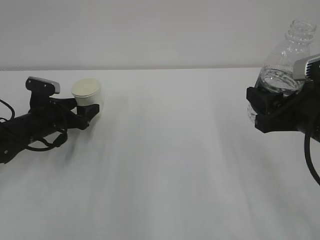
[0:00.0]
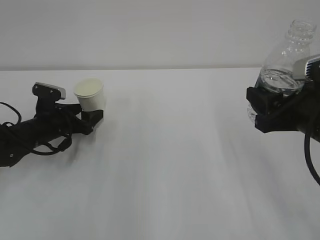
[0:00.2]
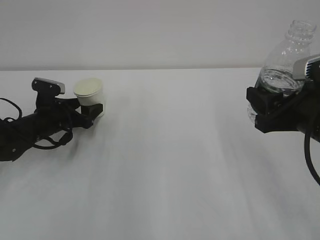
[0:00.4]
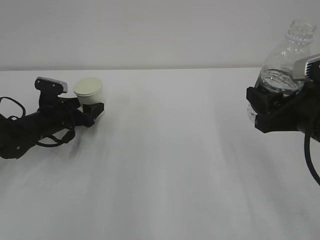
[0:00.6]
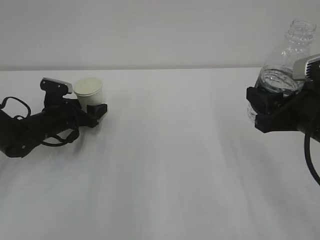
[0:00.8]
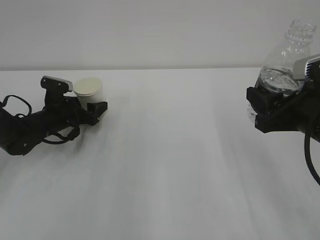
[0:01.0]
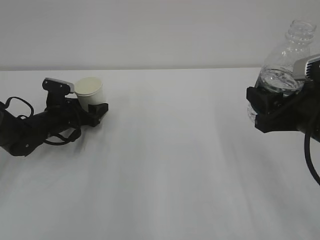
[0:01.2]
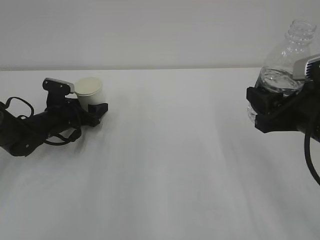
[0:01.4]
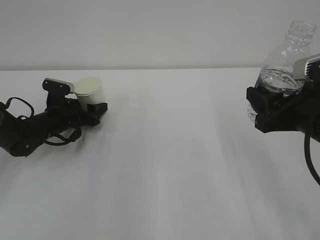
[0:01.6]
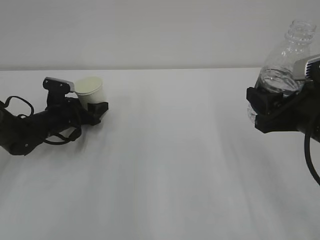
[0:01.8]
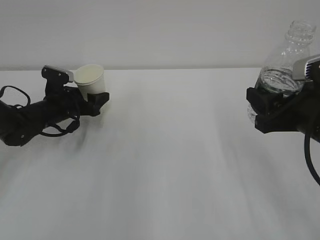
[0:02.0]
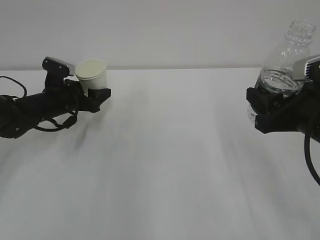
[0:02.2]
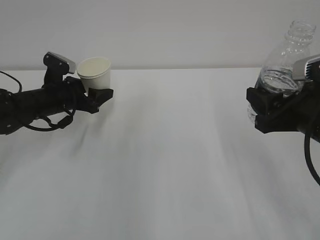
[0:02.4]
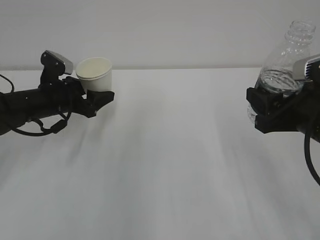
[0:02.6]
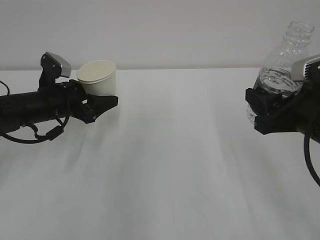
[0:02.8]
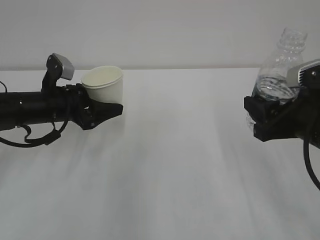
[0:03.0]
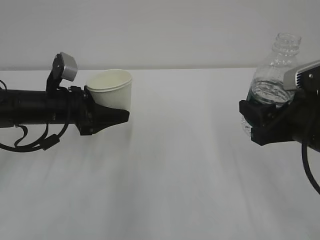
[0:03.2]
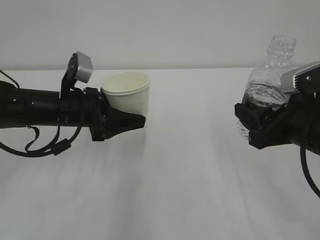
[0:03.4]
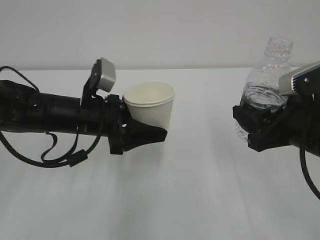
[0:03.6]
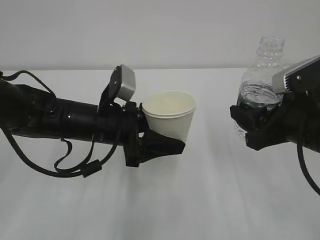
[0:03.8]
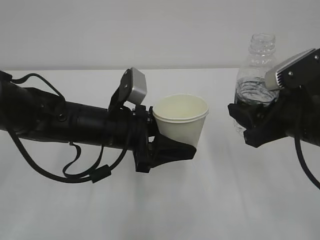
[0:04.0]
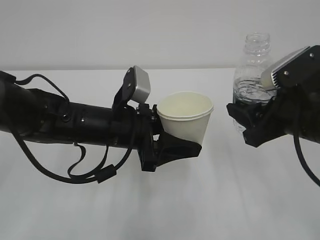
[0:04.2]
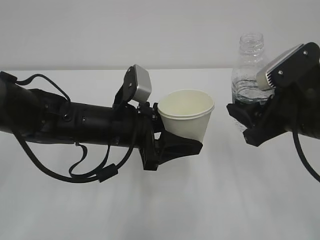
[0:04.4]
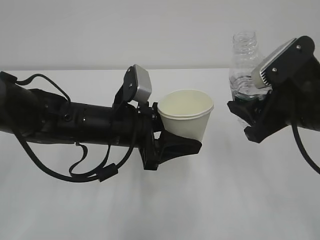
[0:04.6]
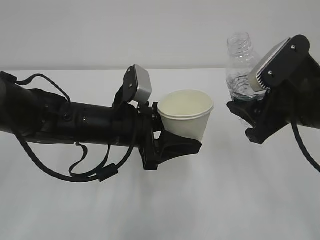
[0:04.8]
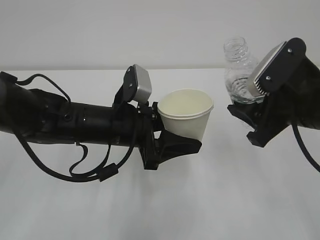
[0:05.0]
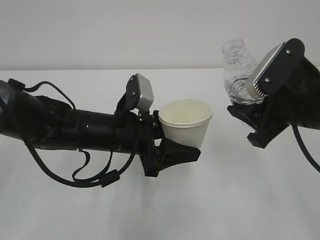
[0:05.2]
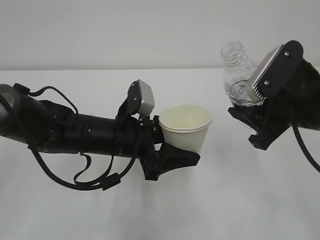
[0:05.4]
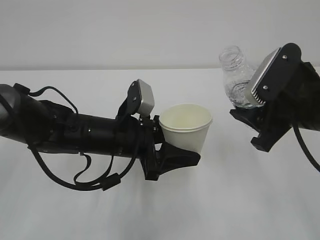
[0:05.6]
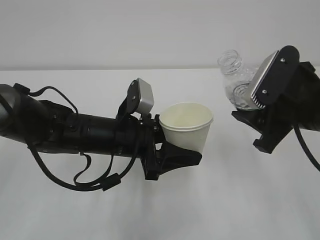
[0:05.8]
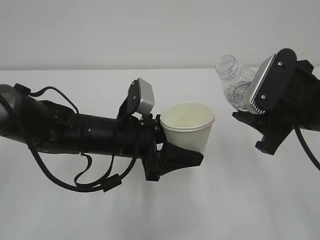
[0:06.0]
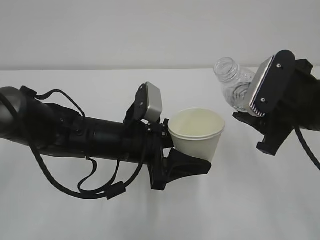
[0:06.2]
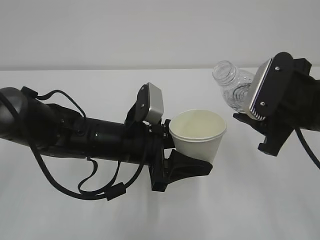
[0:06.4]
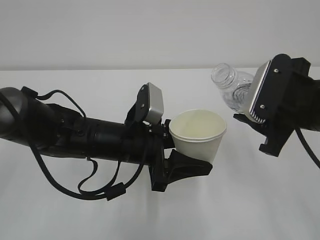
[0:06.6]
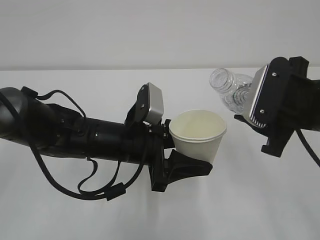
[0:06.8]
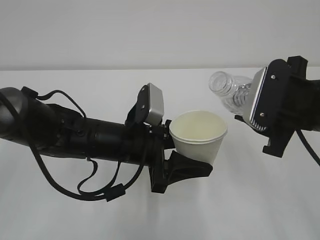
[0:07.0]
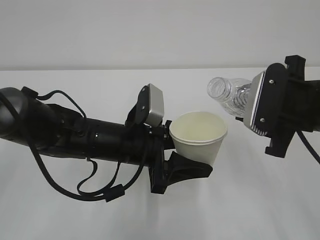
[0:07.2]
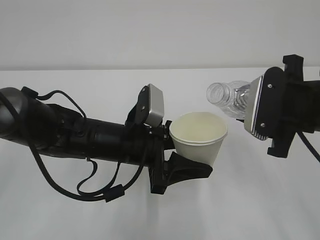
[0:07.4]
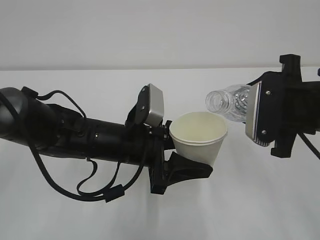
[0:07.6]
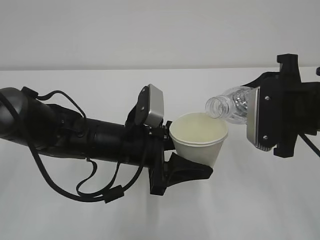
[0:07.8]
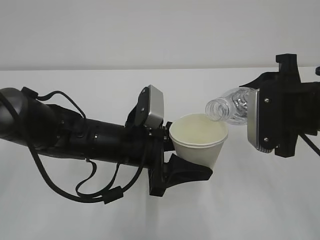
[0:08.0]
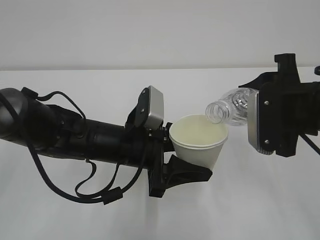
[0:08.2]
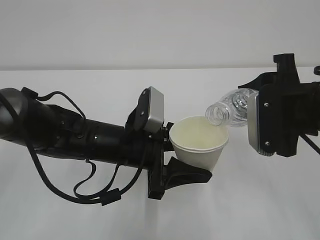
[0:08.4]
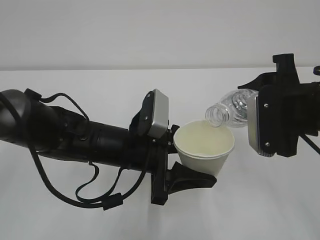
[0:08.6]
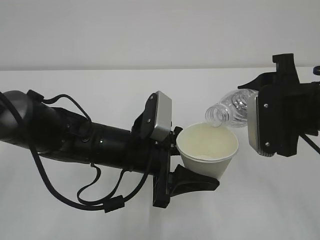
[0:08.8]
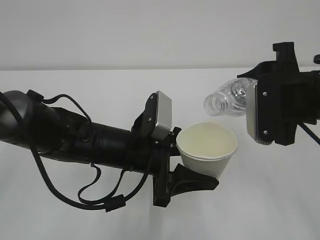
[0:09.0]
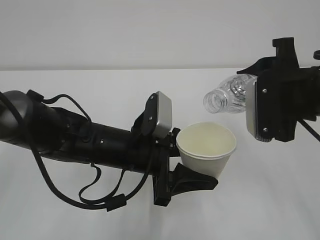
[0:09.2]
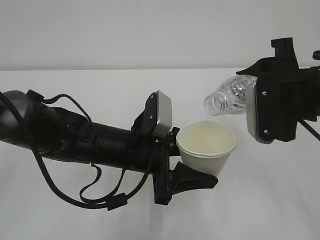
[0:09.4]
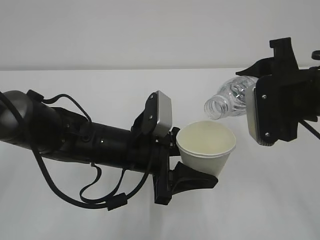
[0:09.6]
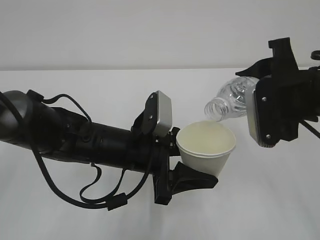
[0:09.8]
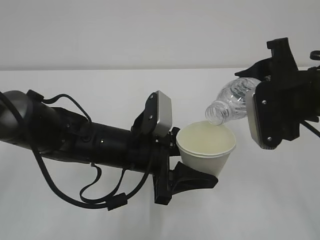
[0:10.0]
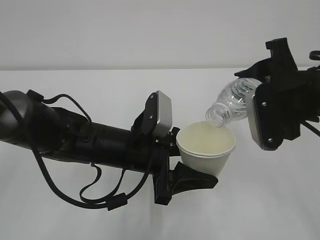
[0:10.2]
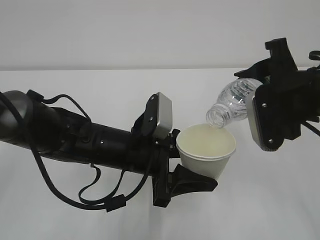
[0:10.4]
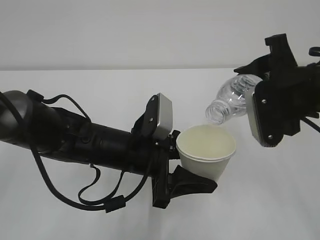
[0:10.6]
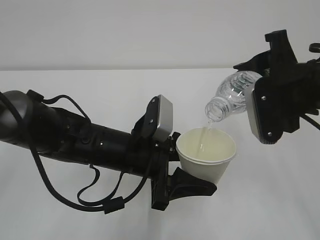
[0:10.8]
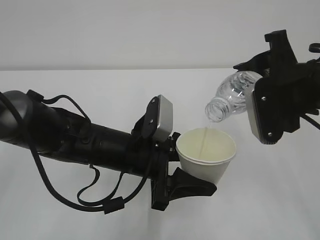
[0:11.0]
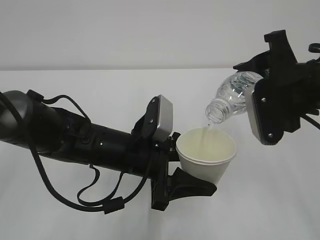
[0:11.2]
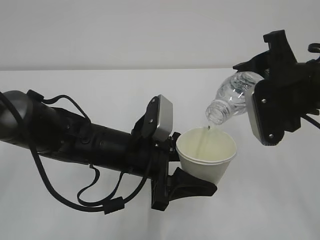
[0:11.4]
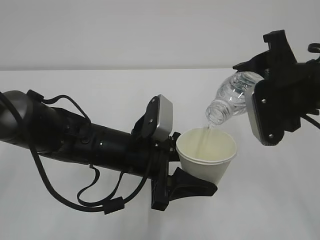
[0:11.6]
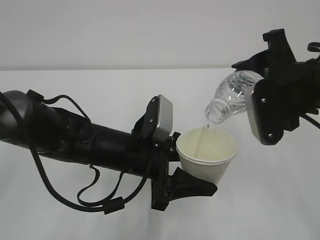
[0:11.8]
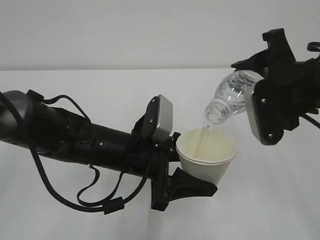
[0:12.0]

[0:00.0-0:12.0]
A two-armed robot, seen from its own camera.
0:00.0 to 0:01.6: The left gripper closes its fingers.
0:01.6 to 0:03.0: The left gripper travels upward and backward by some 10 cm.
0:03.0 to 0:04.4: The left gripper moves to the right and backward, roughly 15 cm.
0:07.6 to 0:09.0: The grippers stay close to where they were, moving slightly.
0:09.0 to 0:10.4: The grippers make only small movements.
0:10.4 to 0:12.0: Neither gripper changes place.

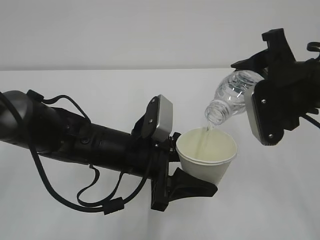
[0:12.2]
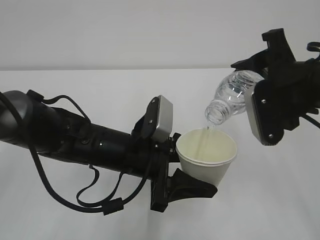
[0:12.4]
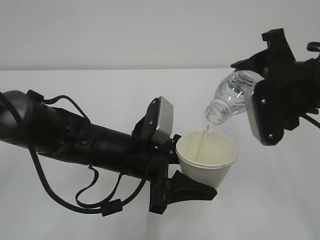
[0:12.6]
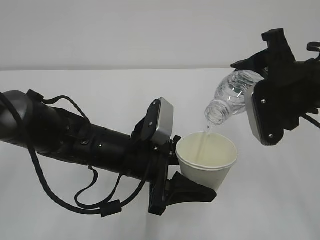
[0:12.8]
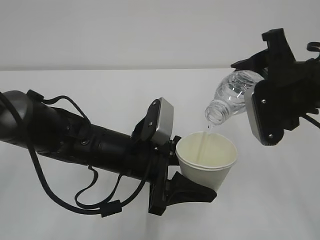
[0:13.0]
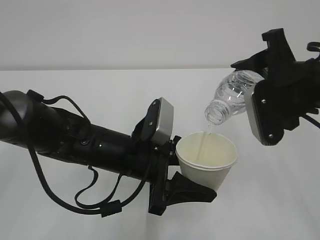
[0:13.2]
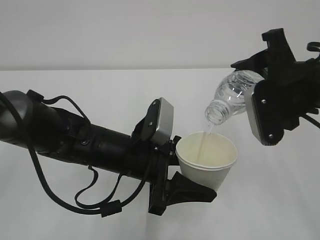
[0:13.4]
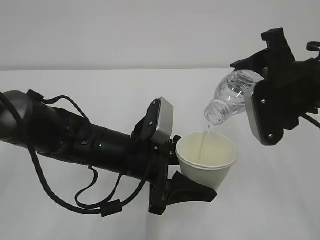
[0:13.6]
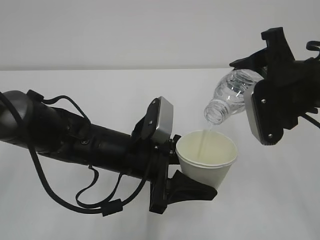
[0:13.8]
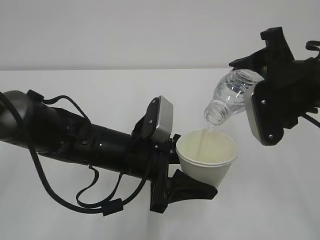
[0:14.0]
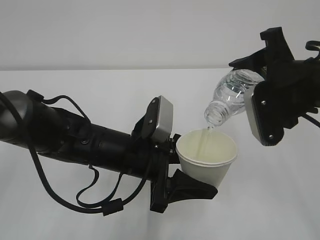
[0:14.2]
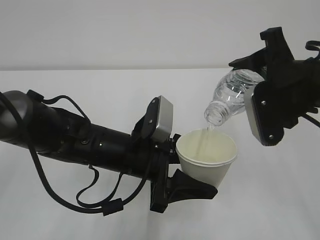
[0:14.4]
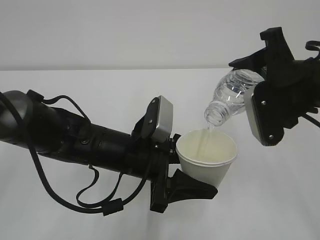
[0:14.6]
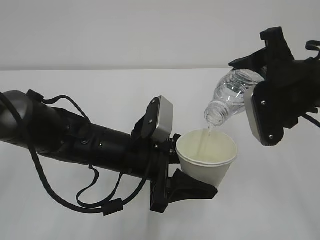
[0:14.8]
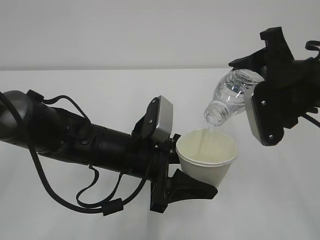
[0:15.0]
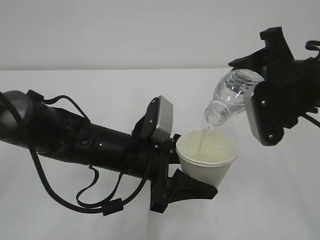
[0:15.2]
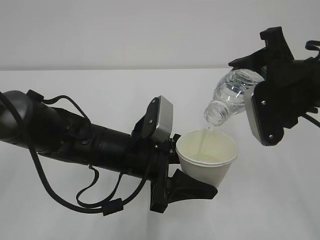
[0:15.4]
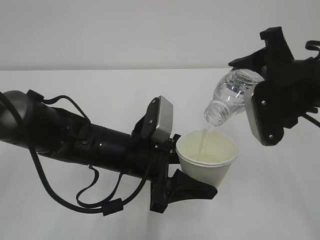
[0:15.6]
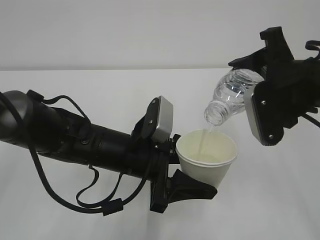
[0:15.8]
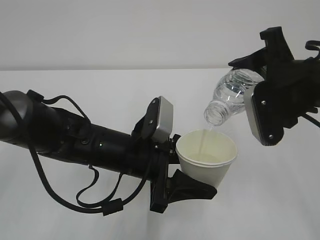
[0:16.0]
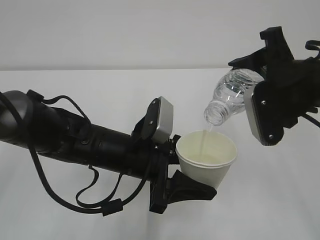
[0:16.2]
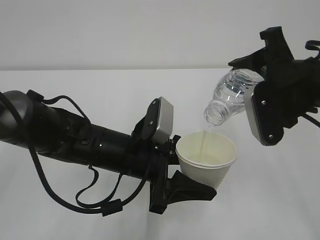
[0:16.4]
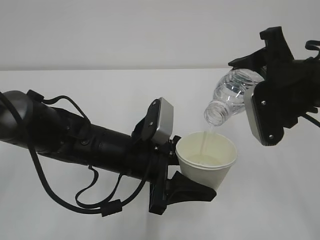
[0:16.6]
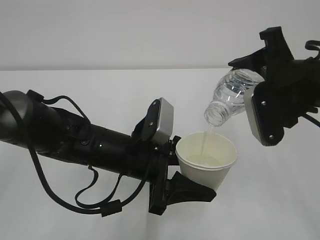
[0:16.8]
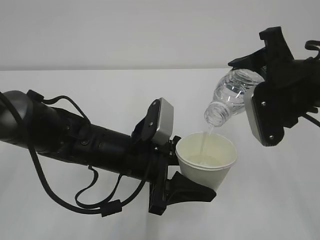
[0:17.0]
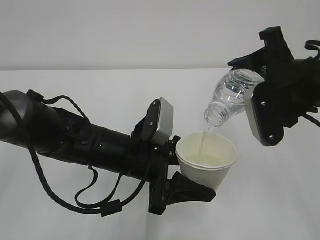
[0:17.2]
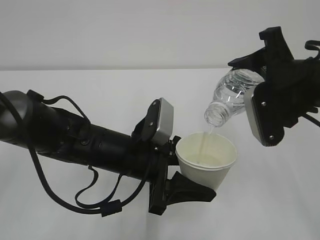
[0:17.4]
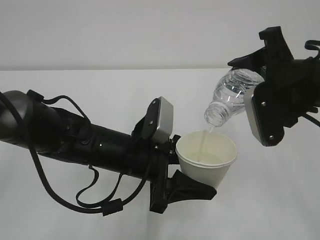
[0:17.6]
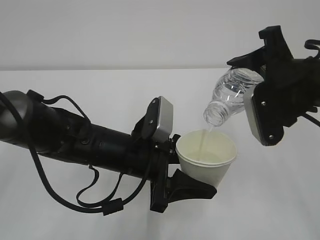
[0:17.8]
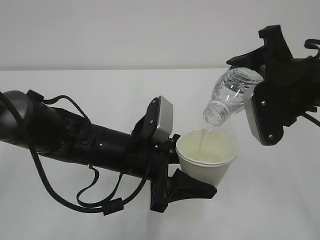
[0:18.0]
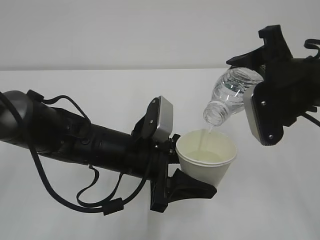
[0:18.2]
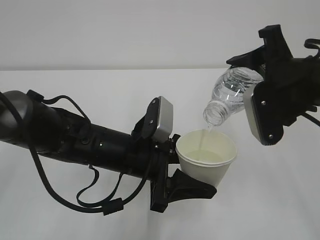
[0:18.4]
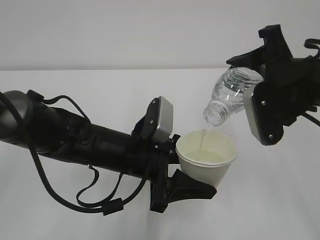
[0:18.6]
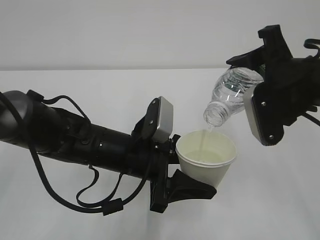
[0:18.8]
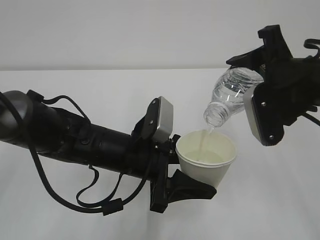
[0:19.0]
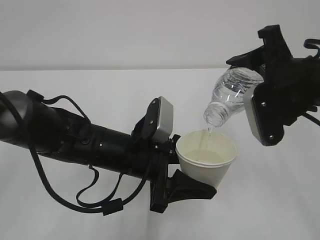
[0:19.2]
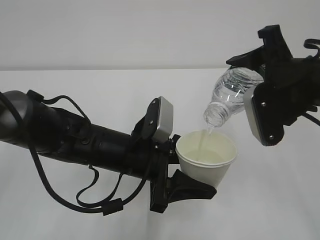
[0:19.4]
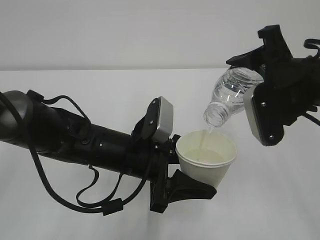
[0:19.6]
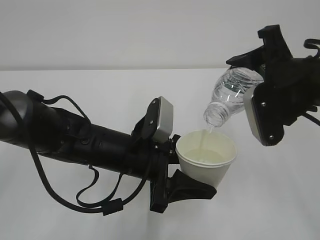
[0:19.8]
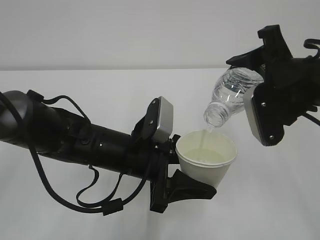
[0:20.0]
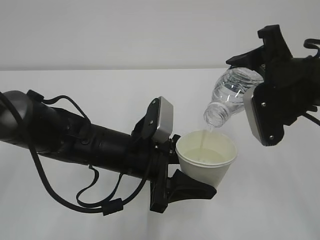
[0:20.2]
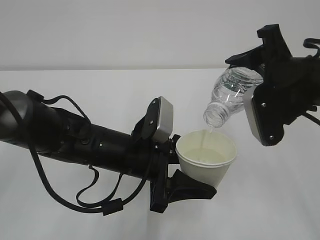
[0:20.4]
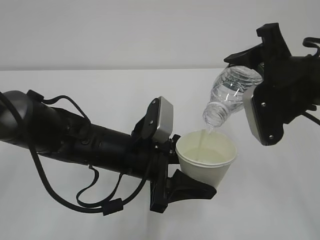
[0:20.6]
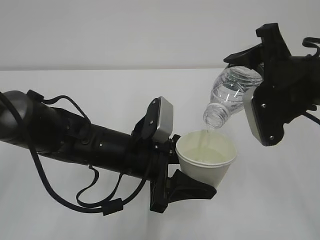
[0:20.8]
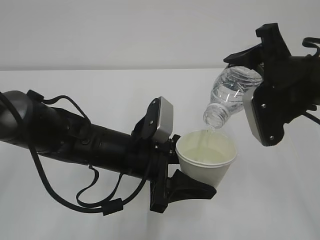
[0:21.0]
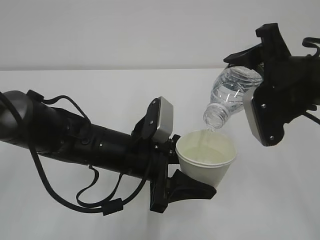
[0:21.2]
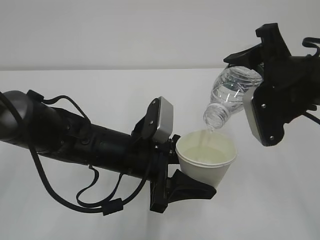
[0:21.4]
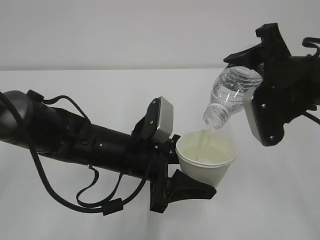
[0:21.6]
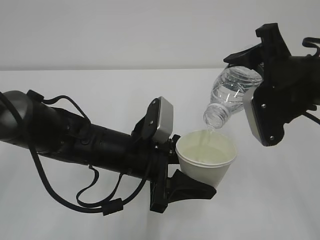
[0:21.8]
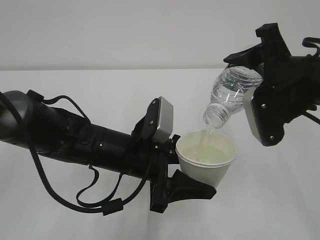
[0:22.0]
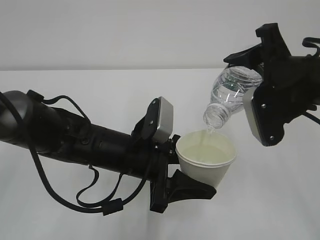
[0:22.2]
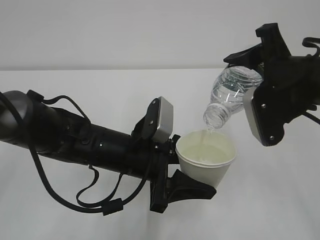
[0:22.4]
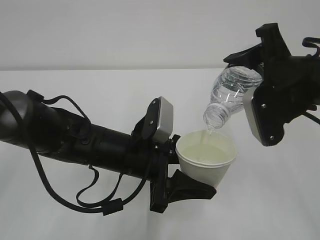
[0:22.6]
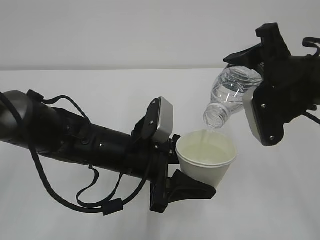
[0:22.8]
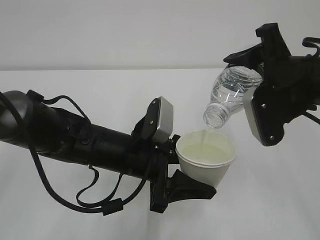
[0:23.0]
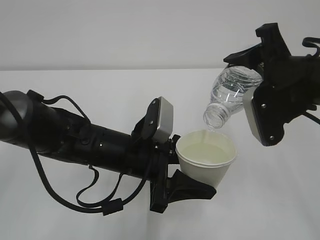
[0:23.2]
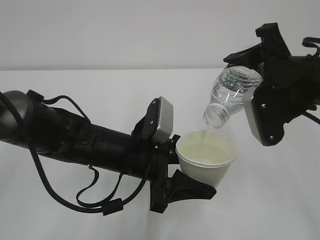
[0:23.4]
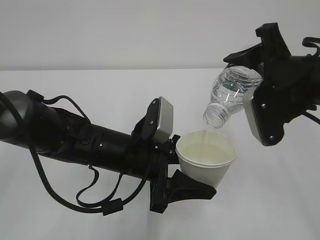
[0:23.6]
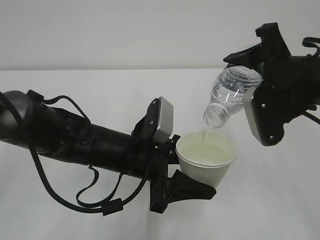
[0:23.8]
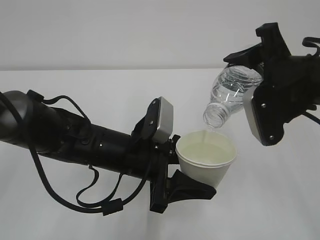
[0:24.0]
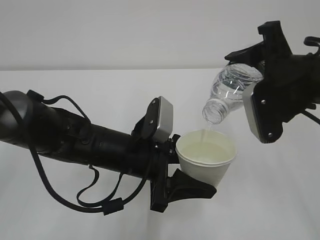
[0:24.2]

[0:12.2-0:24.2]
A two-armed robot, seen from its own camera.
0:12.2 to 0:18.2: Both grippers stay put.
0:18.2 to 0:24.2: Both grippers stay about where they are.
